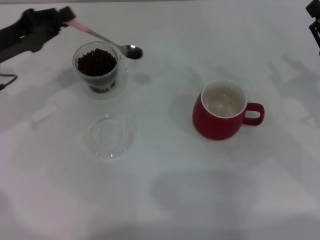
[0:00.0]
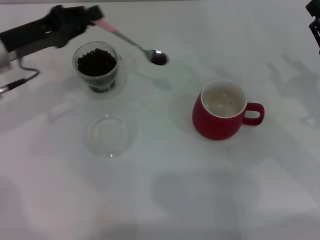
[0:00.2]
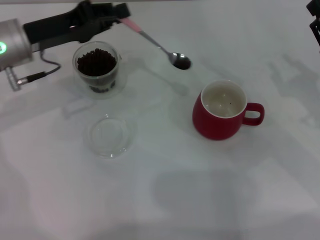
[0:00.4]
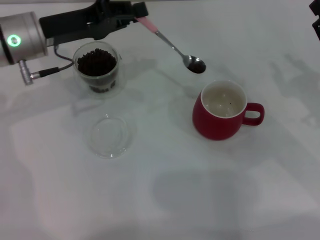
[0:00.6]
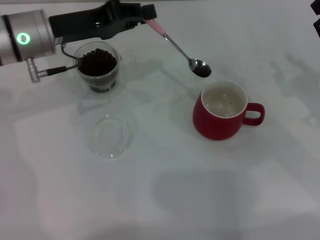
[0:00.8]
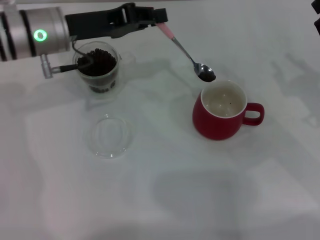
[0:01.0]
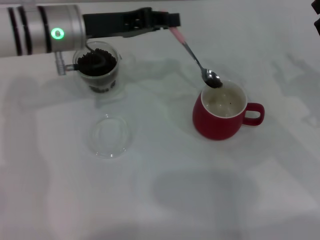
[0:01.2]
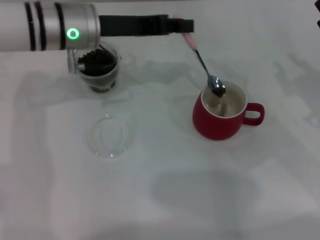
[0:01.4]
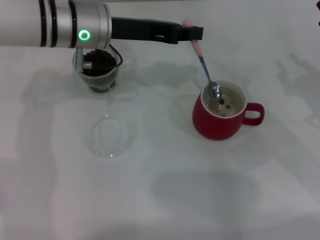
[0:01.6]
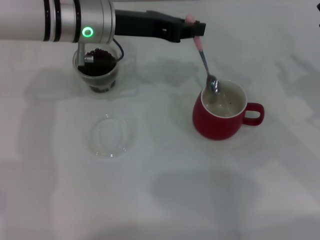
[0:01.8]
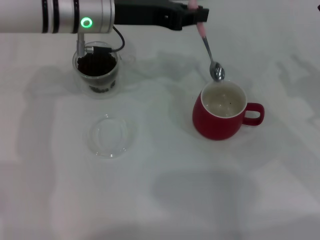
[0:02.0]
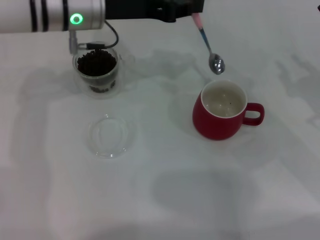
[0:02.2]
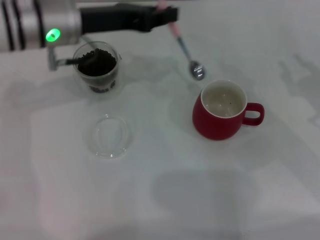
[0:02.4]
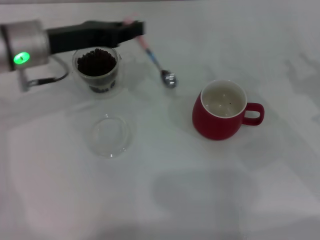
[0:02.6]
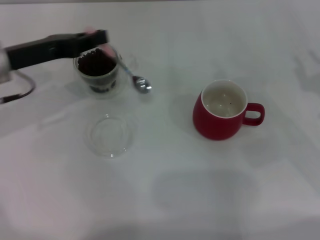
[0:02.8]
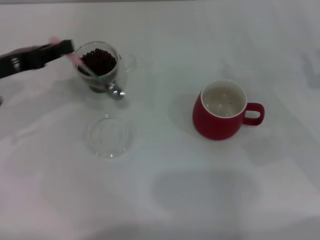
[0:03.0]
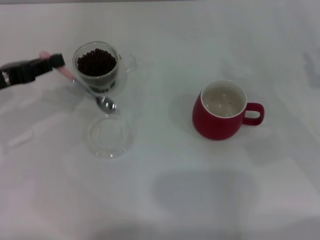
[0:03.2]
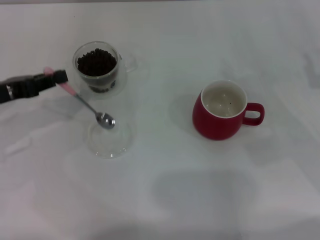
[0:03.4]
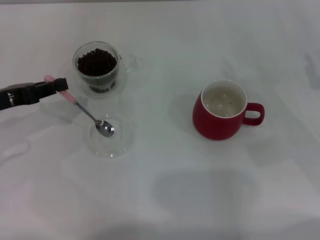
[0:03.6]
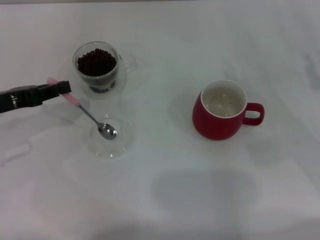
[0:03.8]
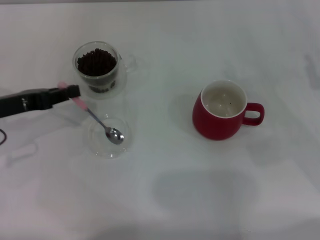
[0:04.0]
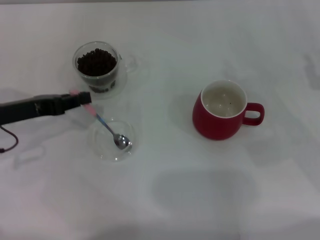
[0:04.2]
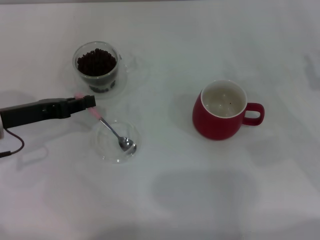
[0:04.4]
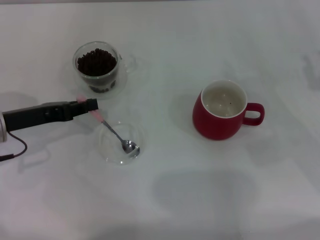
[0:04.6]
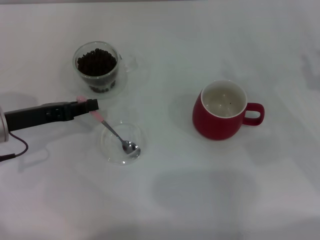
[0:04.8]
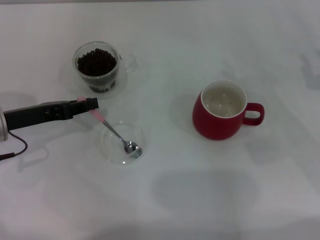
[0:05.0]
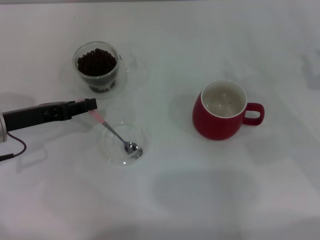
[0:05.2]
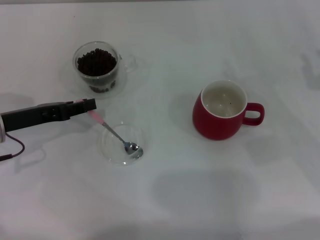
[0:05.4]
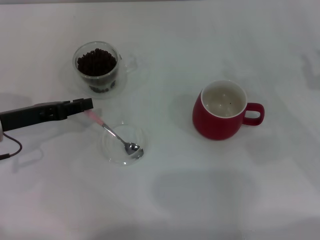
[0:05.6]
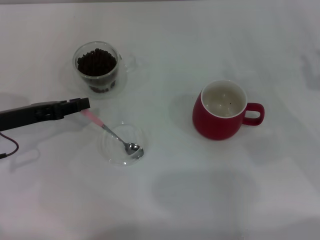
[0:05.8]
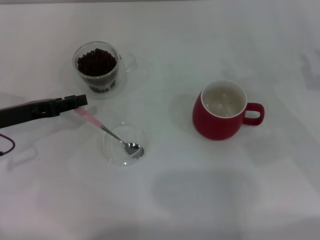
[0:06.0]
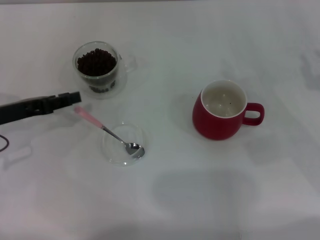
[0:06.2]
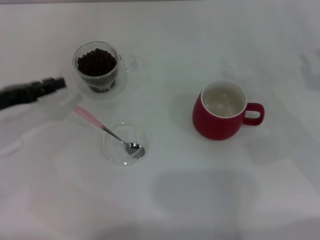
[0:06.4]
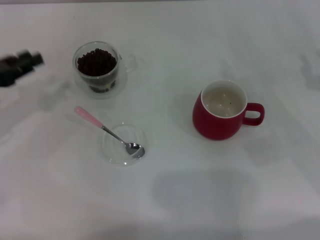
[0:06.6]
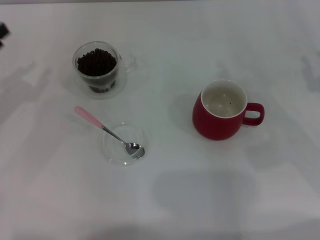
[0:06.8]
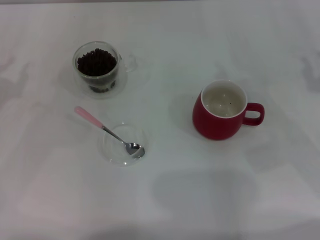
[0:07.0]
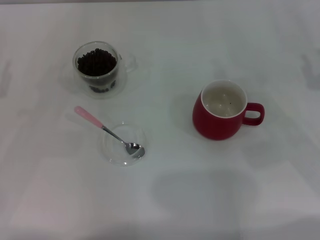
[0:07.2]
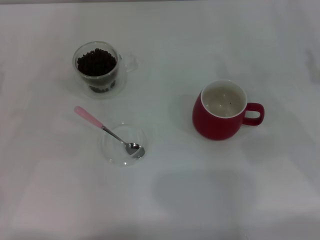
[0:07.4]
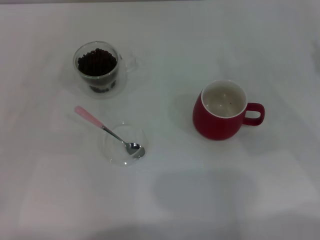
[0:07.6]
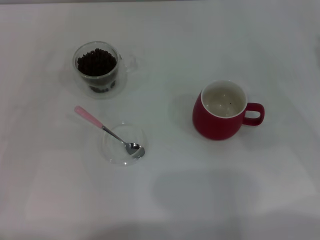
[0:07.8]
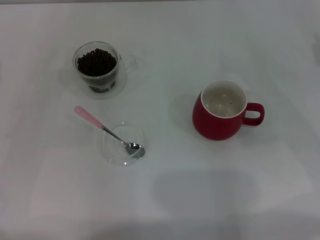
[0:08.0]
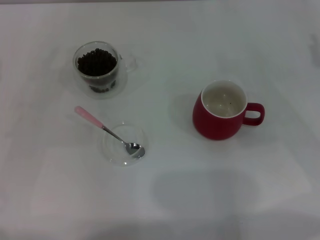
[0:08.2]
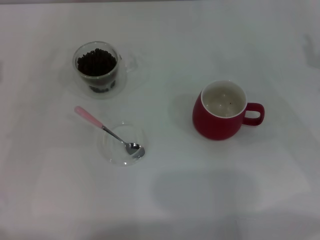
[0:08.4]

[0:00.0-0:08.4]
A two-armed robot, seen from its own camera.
Task of the whole recording: Use a pink spoon to take out the coffee beans from the glass and pour them into the red cup.
0:00.0 to 0:01.4: The left gripper travels to the right by roughly 15 cm.
0:01.4 to 0:02.8: The left gripper shifts approximately 10 cm to the left.
0:02.8 to 0:04.2: The left gripper ends up roughly 5 cm from where it was.
0:04.2 to 0:05.6: There are only small adjustments of the grippers.
0:05.6 to 0:07.0: The left gripper goes roughly 10 cm to the left.
